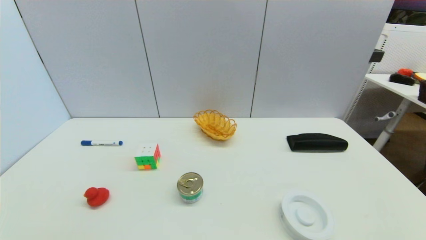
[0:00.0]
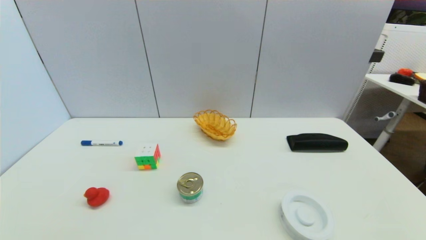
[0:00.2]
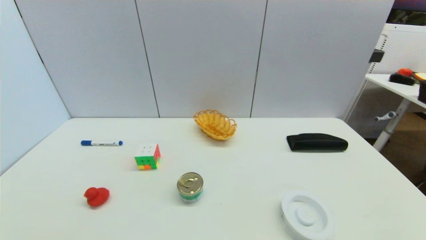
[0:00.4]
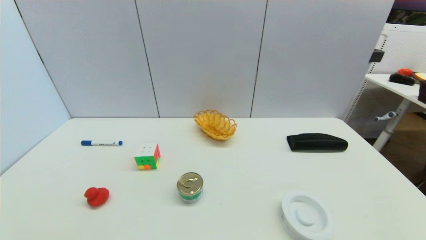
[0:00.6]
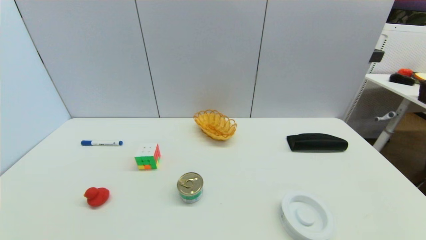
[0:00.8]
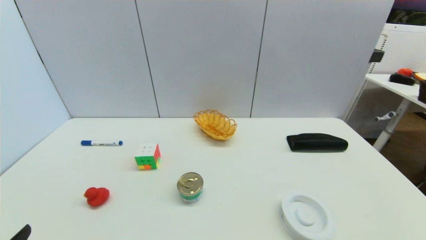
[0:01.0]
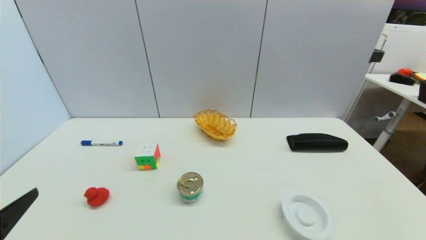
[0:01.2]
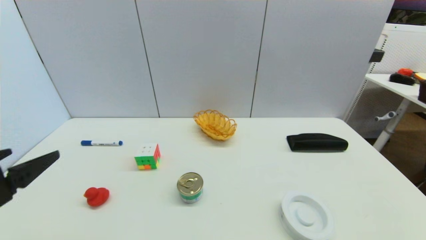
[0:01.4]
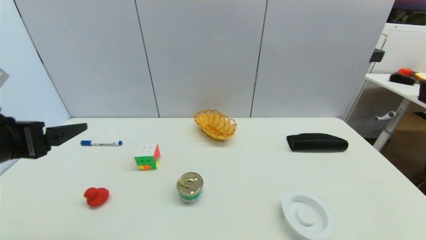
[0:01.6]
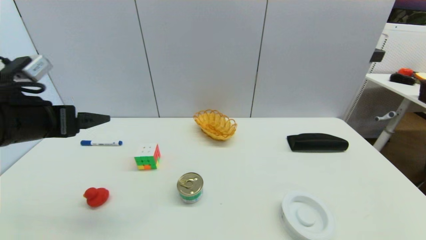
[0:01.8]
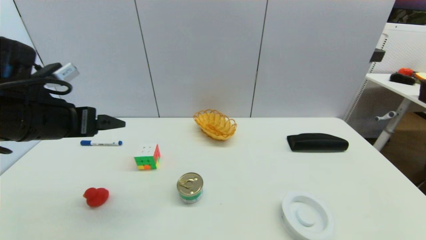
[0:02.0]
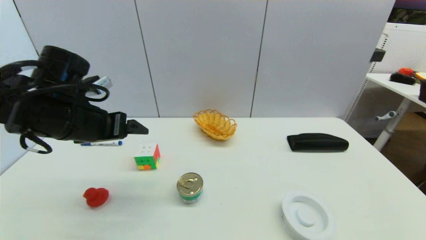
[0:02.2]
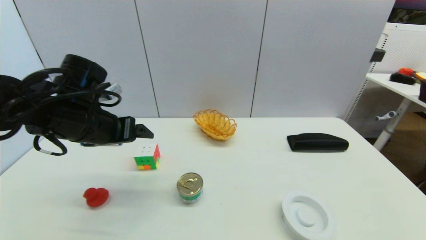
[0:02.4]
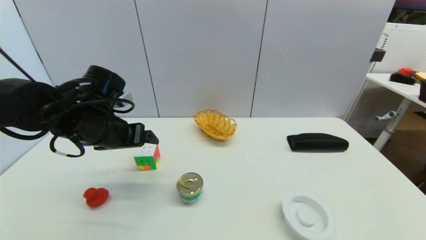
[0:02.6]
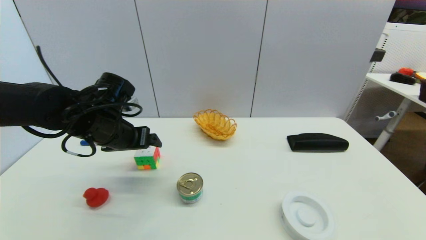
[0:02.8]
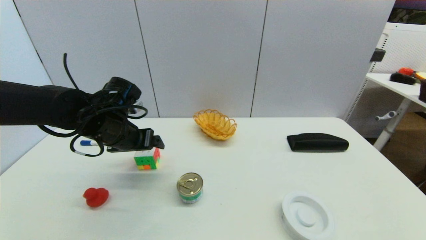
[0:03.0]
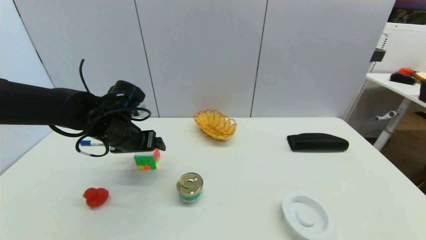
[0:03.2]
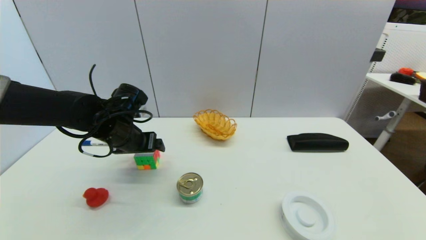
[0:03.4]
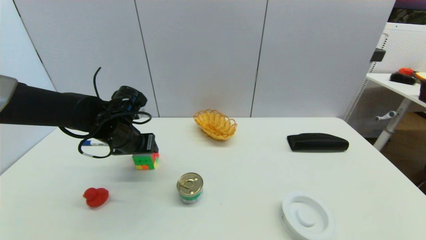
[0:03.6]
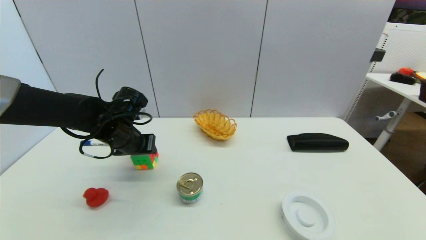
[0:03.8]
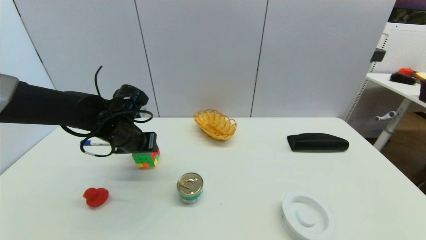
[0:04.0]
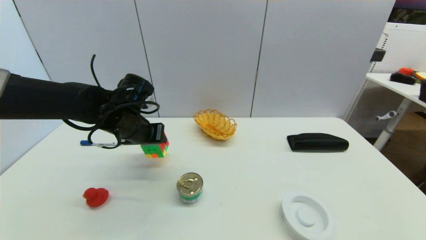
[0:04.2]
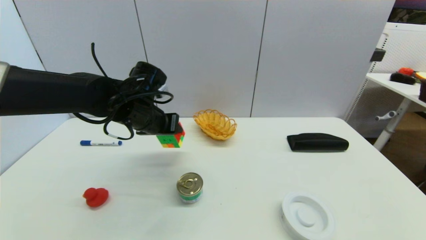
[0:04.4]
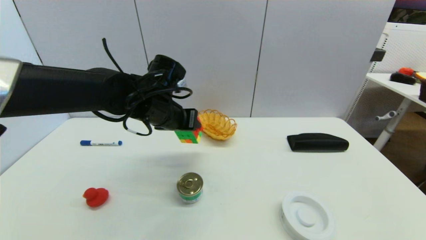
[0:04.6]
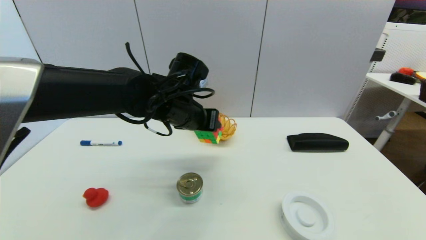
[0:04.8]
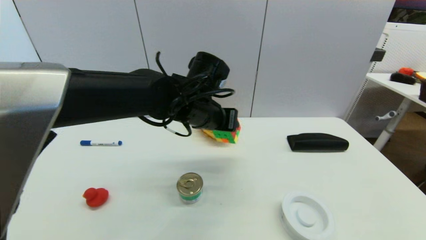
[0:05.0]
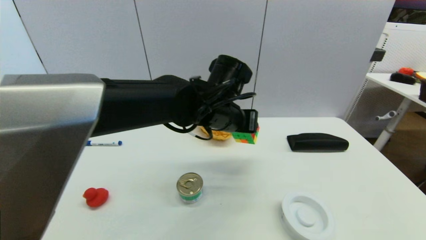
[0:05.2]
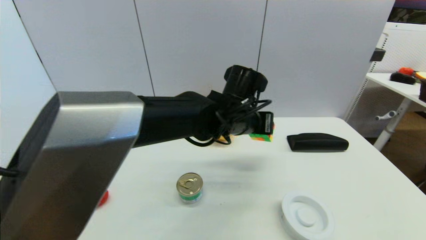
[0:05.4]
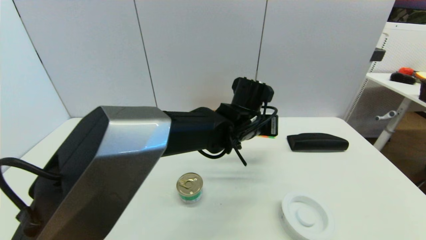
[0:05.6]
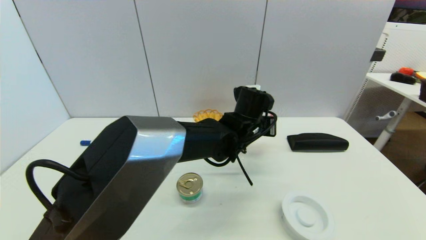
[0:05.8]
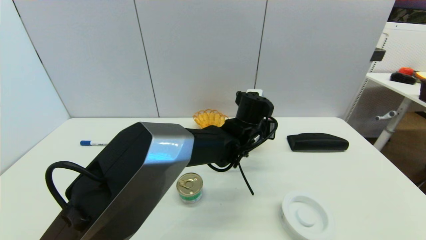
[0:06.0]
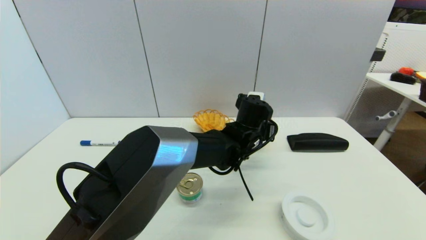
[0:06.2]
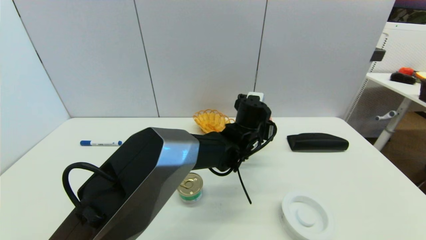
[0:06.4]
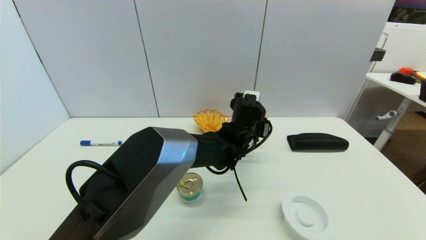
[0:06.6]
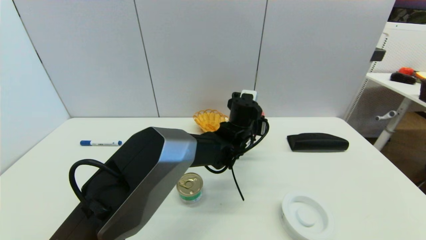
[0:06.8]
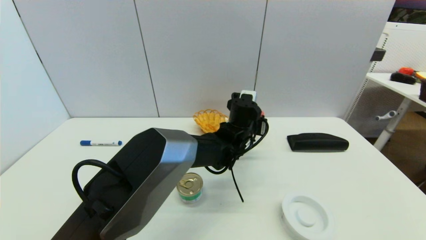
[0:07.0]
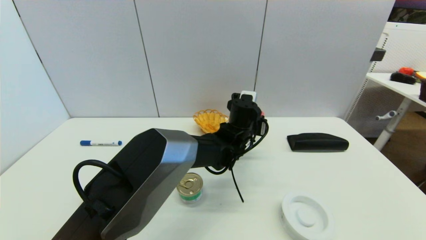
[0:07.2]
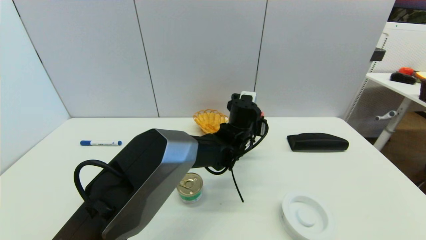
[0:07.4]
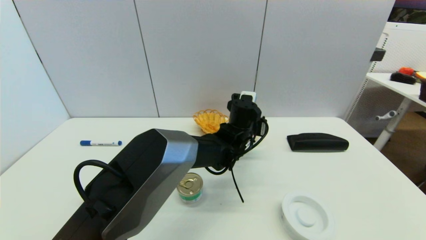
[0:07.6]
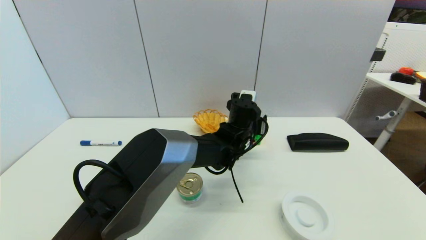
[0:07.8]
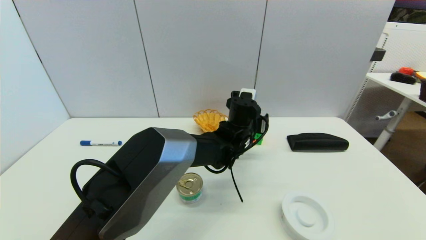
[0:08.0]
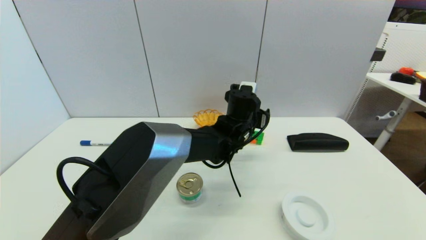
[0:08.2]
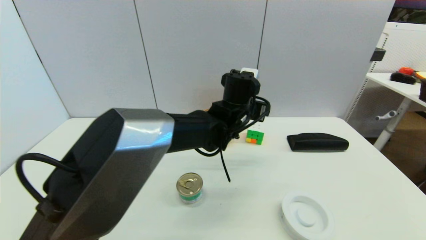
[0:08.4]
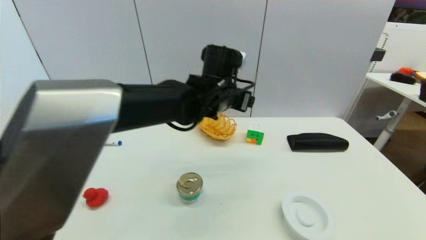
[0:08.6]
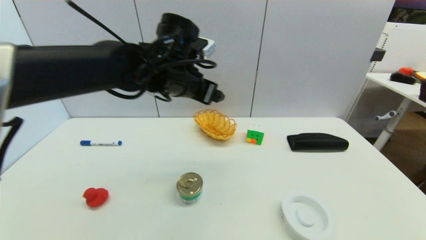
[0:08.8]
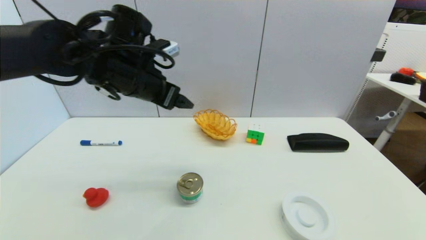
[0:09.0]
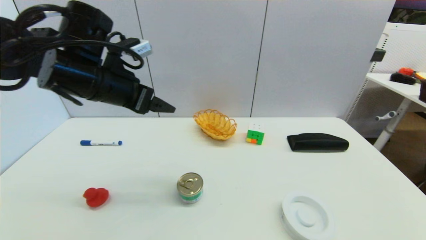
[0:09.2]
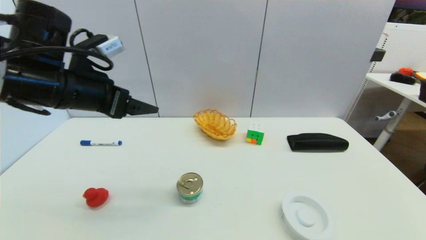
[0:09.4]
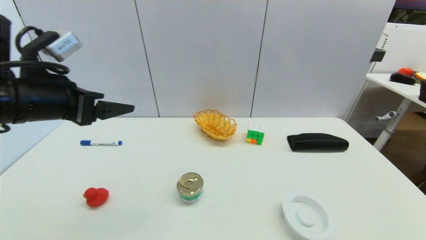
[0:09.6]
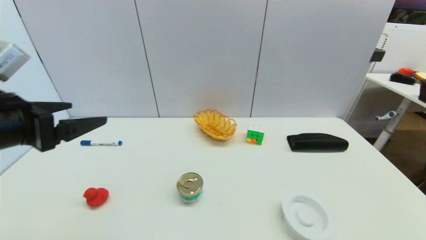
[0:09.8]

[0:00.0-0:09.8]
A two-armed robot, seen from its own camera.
Step, 0:01.0 to 0:03.8: Grasp the magic cube with left gripper.
Step, 0:04.0 to 0:08.4: Place the magic cube on the table with left gripper.
0:00.0 to 0:01.4: The left gripper travels upward and forward by roughly 20 cm.
0:01.4 to 0:02.8: The left gripper is displaced forward and to the right by approximately 25 cm.
0:02.8 to 0:04.2: The left gripper closes.
0:04.2 to 0:05.6: The left gripper moves to the right, about 25 cm.
0:05.6 to 0:07.0: The left gripper goes approximately 5 cm downward.
0:07.0 to 0:08.4: The left gripper travels upward by roughly 10 cm, and opens up.
0:08.4 to 0:09.8: The left gripper is displaced to the left and backward by about 40 cm.

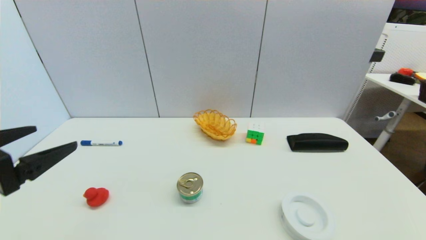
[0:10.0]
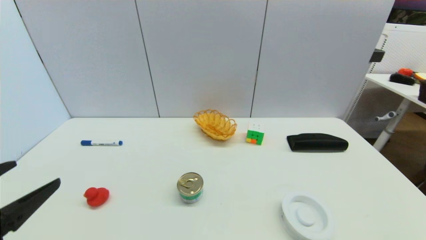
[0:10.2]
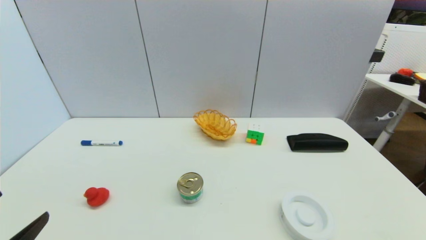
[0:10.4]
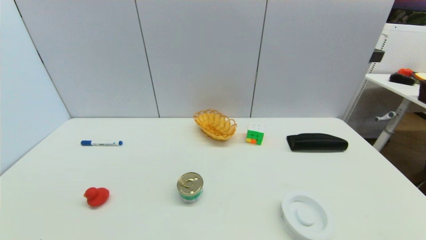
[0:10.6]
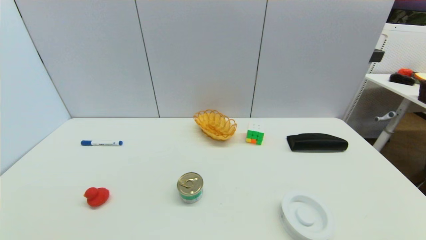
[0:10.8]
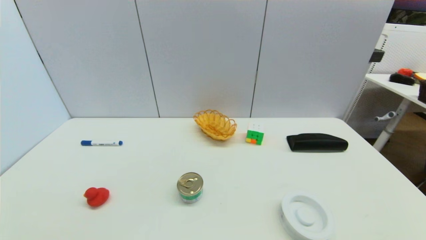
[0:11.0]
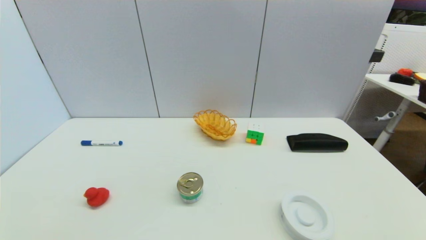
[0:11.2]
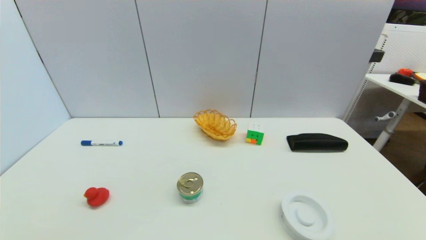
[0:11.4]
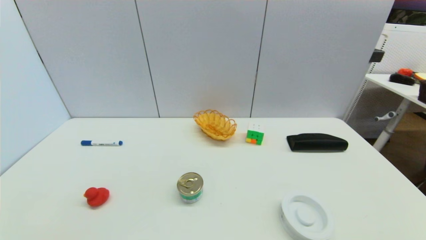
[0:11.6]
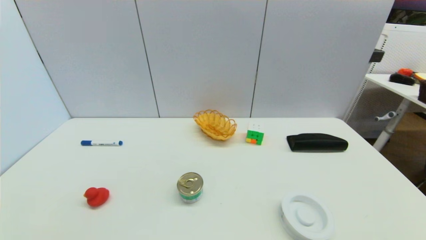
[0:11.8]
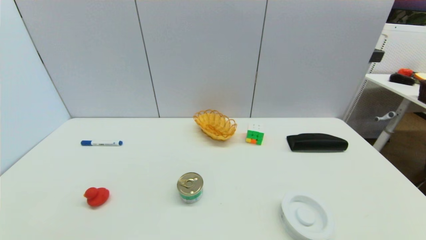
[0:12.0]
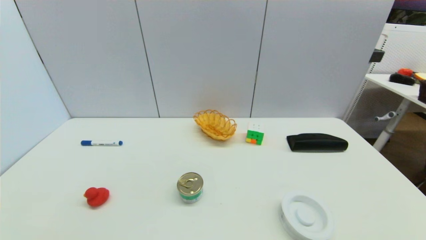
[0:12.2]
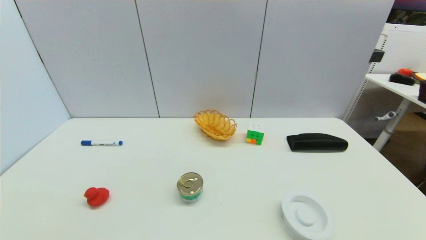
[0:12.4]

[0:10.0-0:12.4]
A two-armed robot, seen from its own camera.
0:10.0 to 0:11.2: The left gripper moves downward and backward, approximately 20 cm.

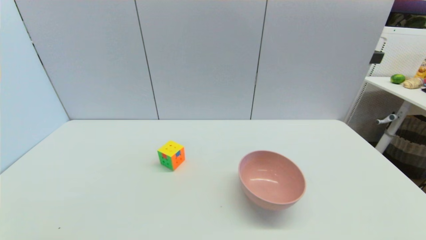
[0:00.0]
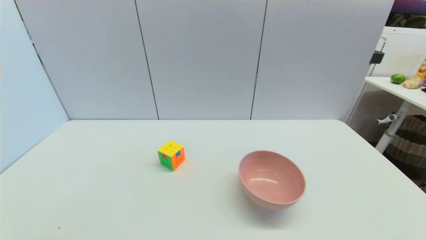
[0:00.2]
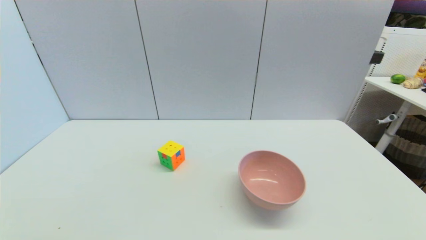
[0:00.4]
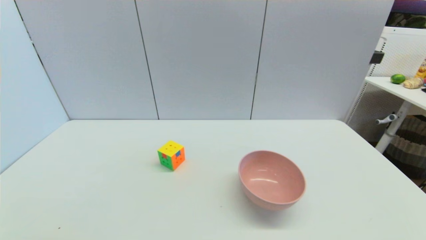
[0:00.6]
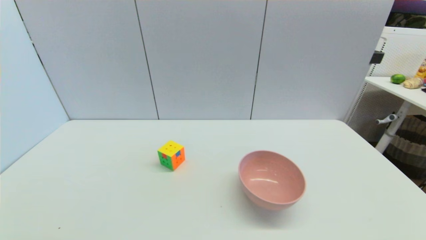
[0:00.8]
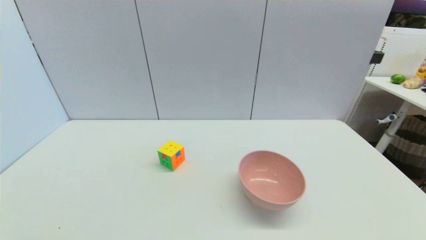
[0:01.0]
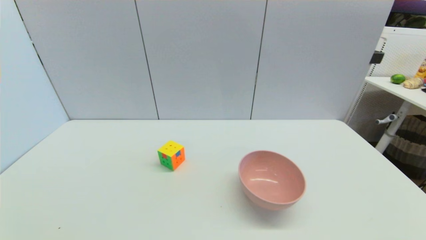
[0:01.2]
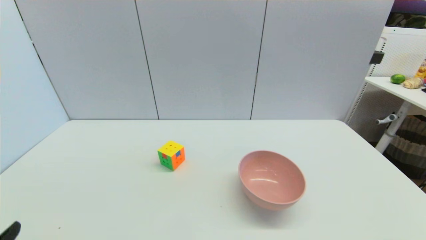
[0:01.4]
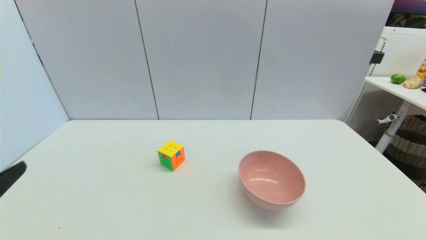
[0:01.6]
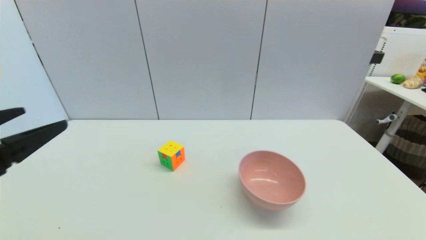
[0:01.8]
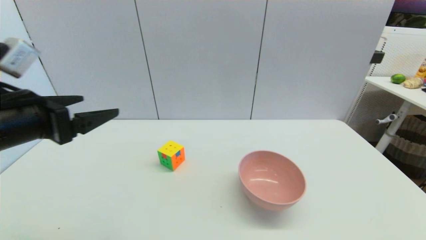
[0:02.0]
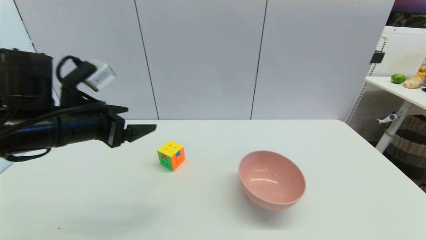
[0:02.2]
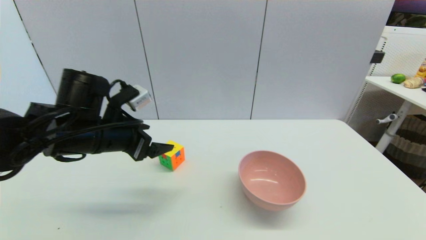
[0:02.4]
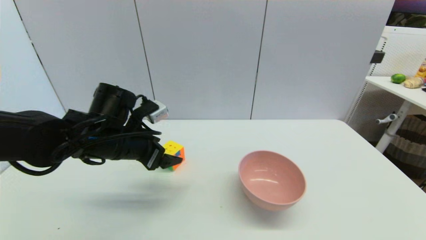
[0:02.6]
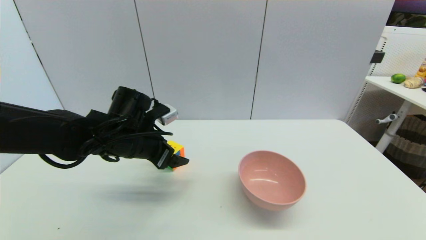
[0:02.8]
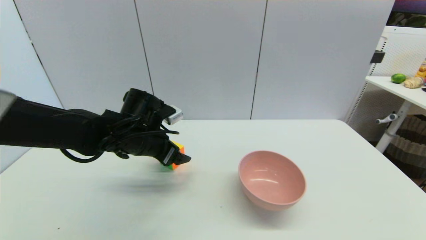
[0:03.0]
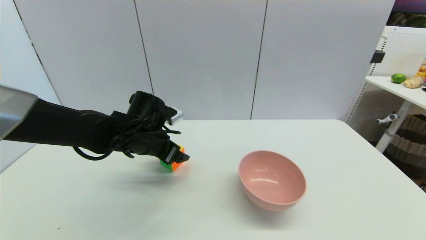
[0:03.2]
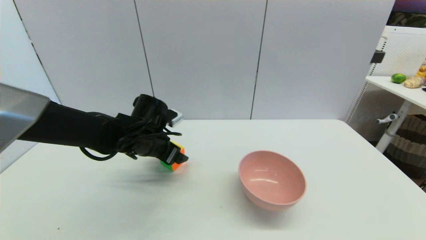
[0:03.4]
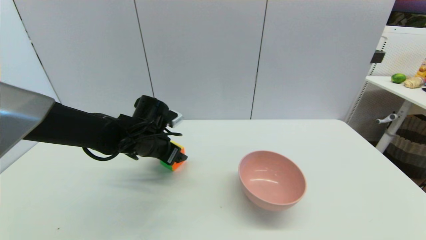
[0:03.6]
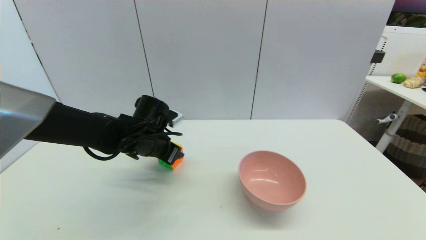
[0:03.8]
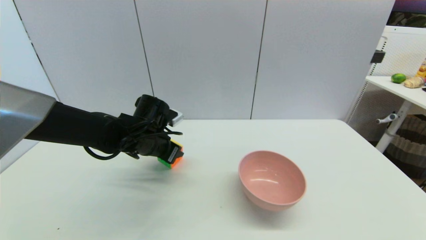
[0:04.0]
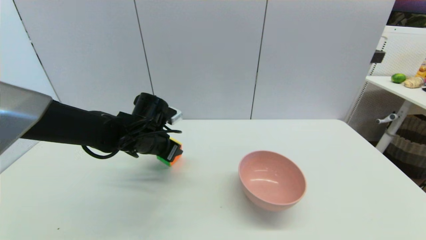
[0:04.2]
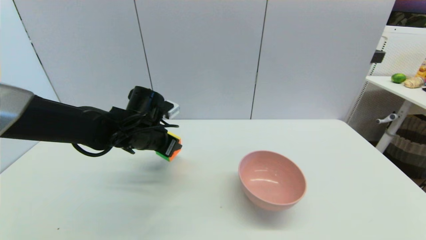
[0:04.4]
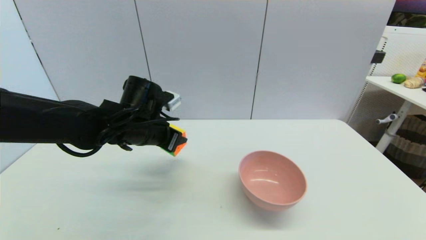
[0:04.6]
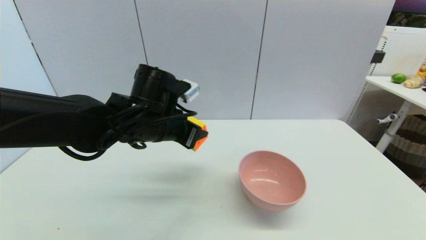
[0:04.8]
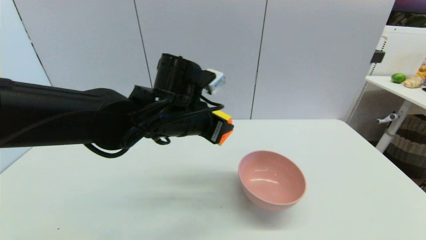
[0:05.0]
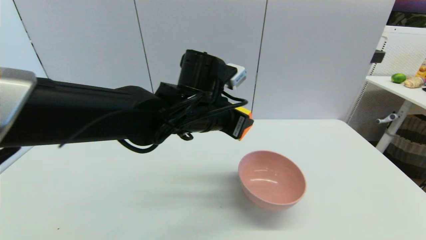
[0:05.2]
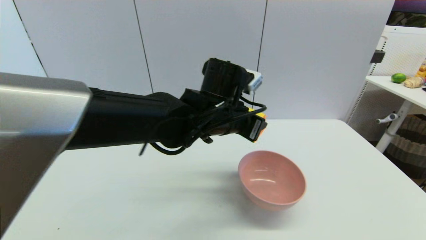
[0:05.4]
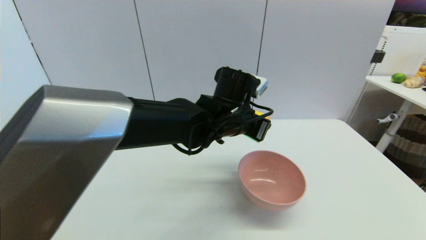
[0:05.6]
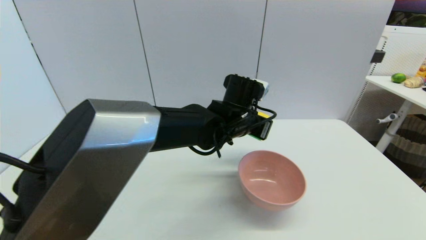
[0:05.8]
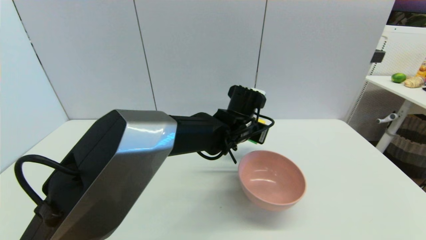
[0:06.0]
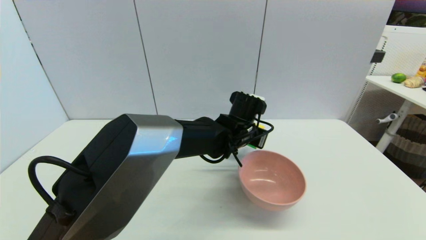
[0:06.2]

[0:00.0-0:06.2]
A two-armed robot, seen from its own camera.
Step, 0:01.4 to 0:03.8: Grasp the magic cube with left gripper.
0:01.6 to 0:03.2: The left gripper heads forward and to the right, covering about 30 cm.
0:03.2 to 0:04.6: The left gripper closes up.
0:04.6 to 0:06.2: The left gripper travels to the right by roughly 20 cm.
